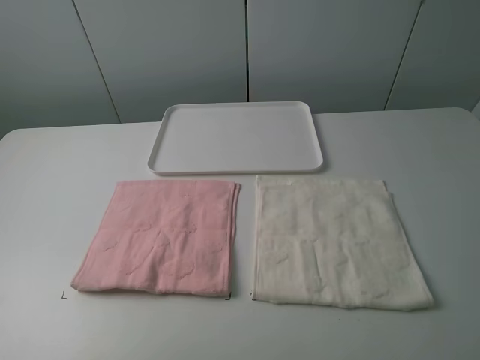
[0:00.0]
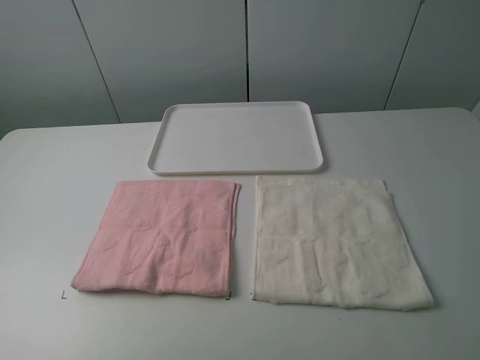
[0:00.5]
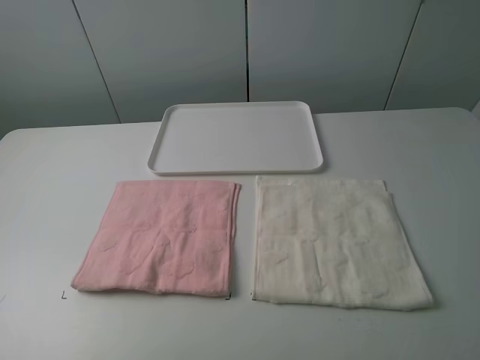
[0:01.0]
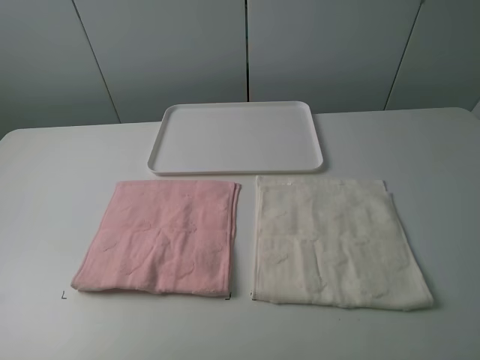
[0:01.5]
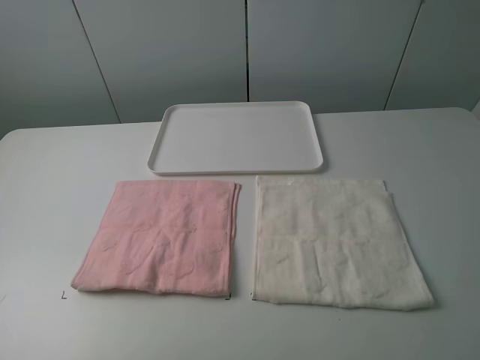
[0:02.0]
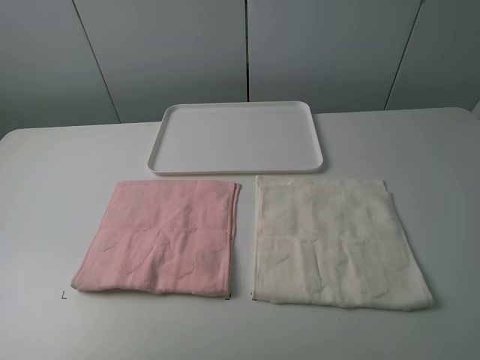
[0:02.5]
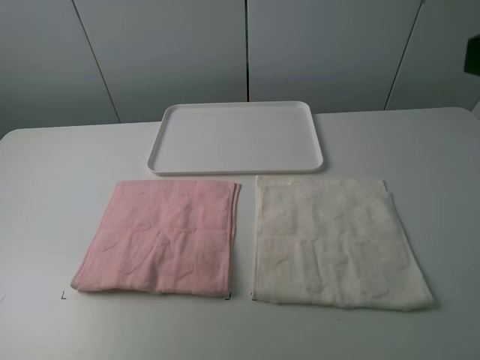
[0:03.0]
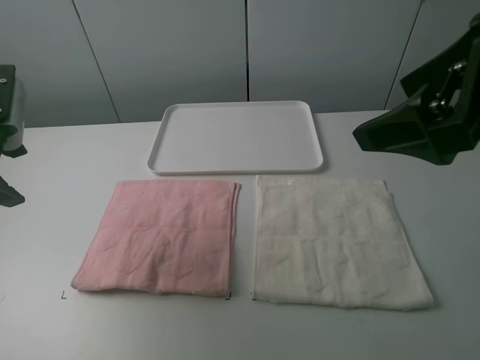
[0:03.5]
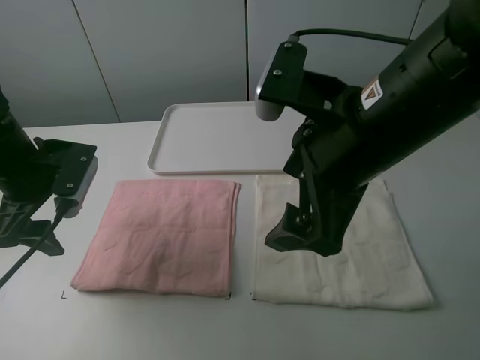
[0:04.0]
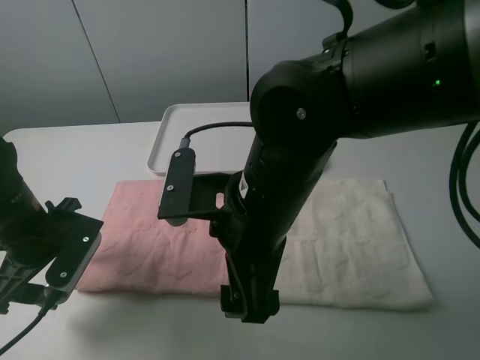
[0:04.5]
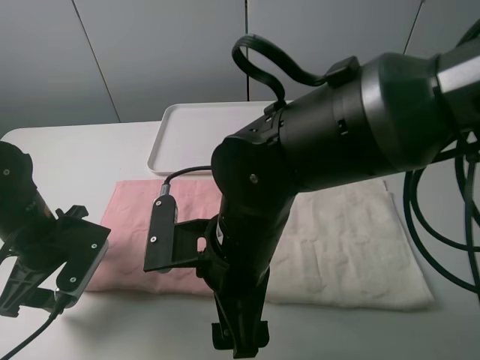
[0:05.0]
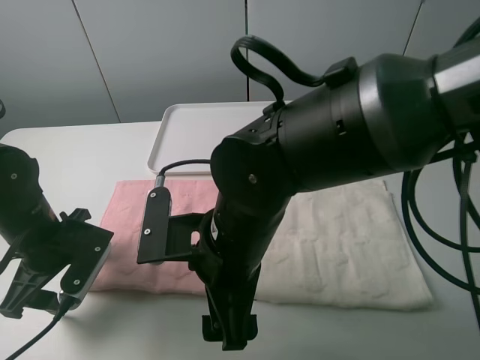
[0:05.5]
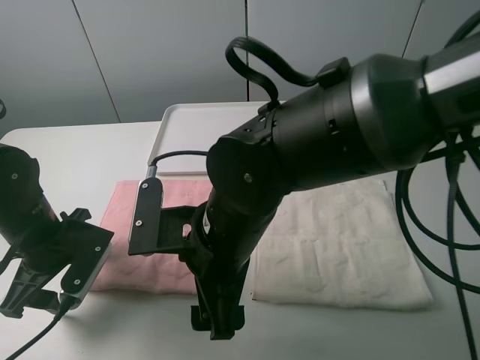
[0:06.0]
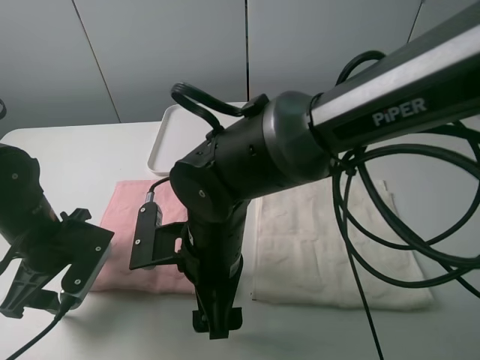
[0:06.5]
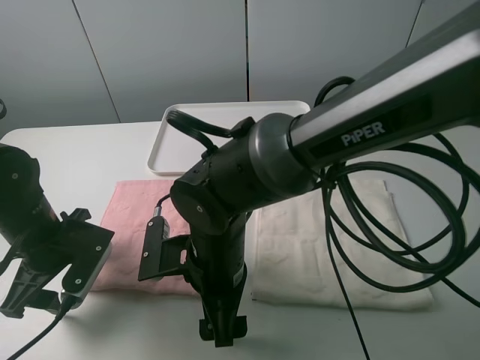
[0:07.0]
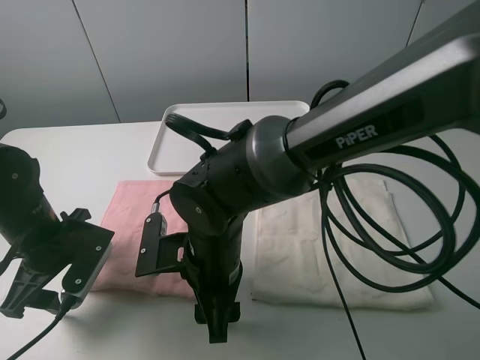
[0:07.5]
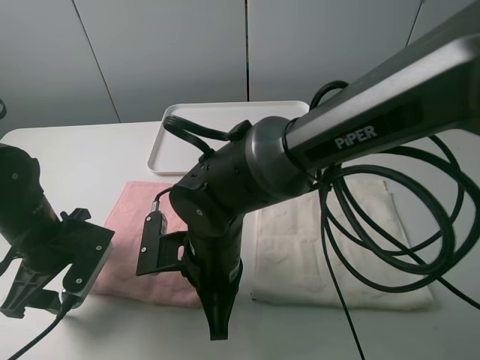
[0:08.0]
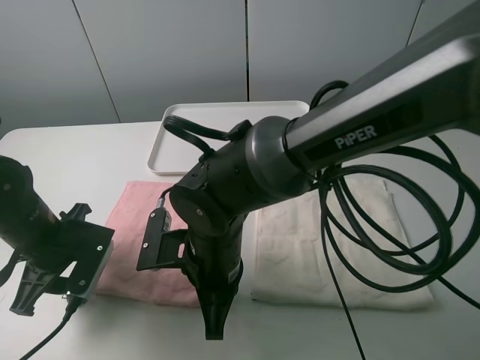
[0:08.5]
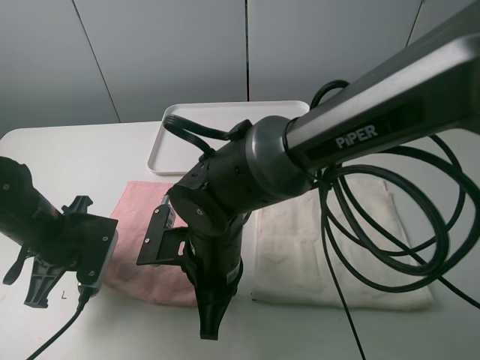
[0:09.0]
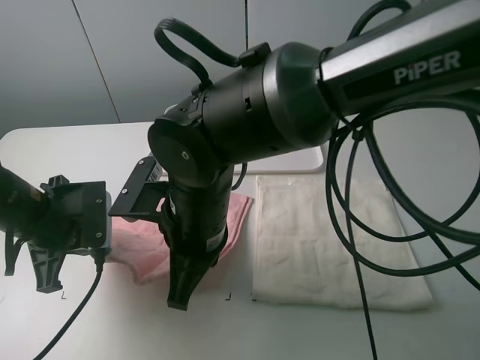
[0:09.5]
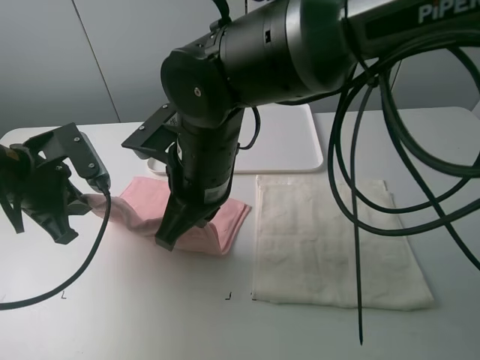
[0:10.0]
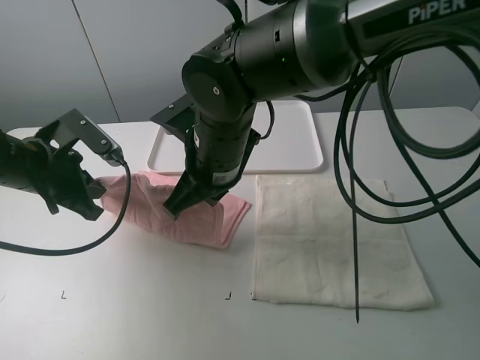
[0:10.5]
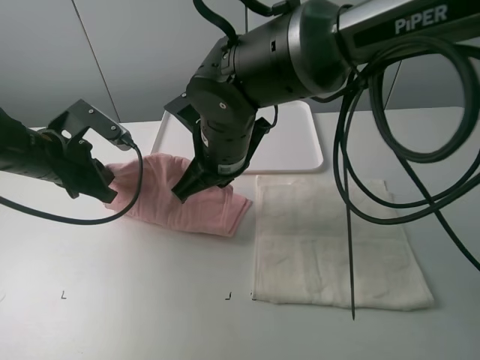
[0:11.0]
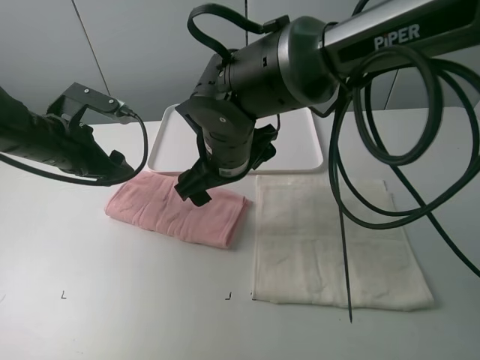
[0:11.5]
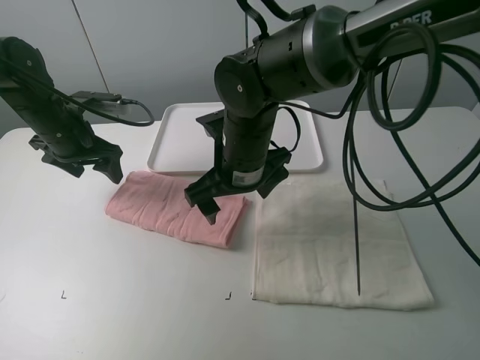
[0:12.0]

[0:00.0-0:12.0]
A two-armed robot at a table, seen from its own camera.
Task of the whole recording: fold one of the towels by two grippers and place it on the tray,then fold another towel by two grippers and place it on the folded towel.
Step, 0:00.0 to 0:08.5: Grasp the pink towel with the left gripper.
Step, 0:09.0 to 0:11.0: Fold the pink towel upwards with the left gripper.
0:00.0 to 0:02.0: The two grippers keep their place.
0:02.0 to 0:04.0: The right gripper goes about 25 cm to the left and forward; the left gripper goes roughly 30 cm forward and downward.
0:04.0 to 0:06.0: The left gripper is displaced downward by about 10 cm. The right gripper moves to the left and downward, roughly 15 cm.
0:06.0 to 0:08.0: The right gripper shifts about 5 cm downward, and closes its fingers.
0:08.0 to 0:10.0: The right gripper heads upward and forward, covering approximately 10 cm, while the left gripper moves upward, roughly 5 cm, and closes up.
0:10.0 to 0:12.0: The left gripper goes some 15 cm forward, and opens. Meanwhile the right gripper goes approximately 5 cm forward, and opens.

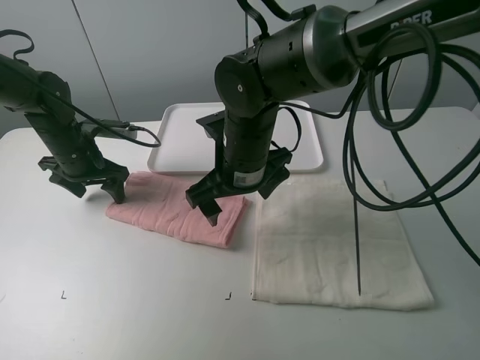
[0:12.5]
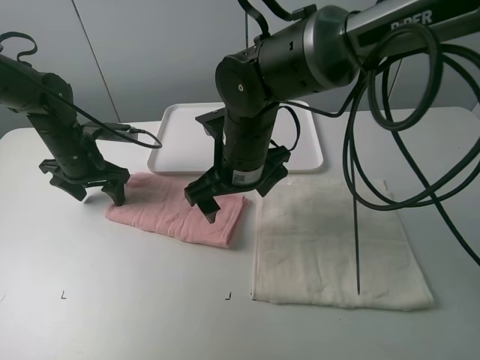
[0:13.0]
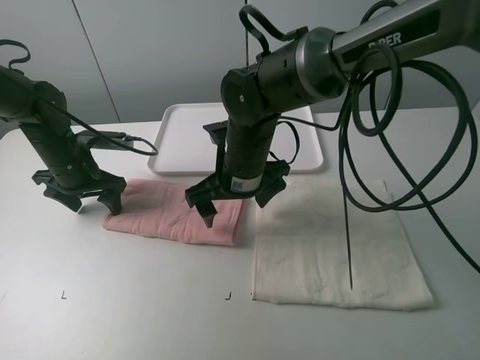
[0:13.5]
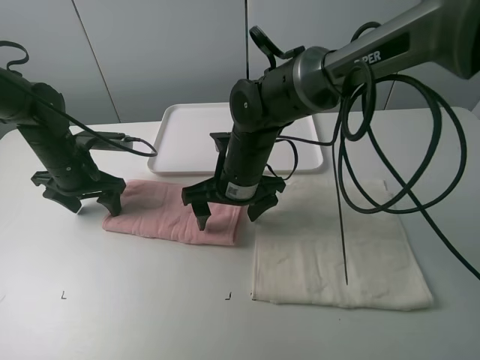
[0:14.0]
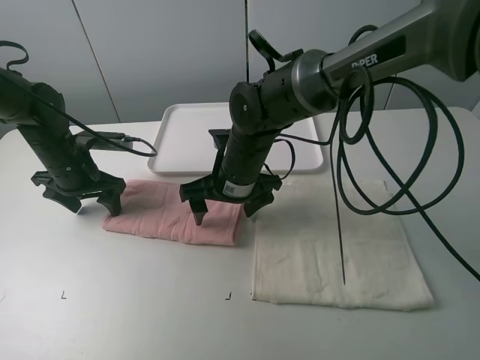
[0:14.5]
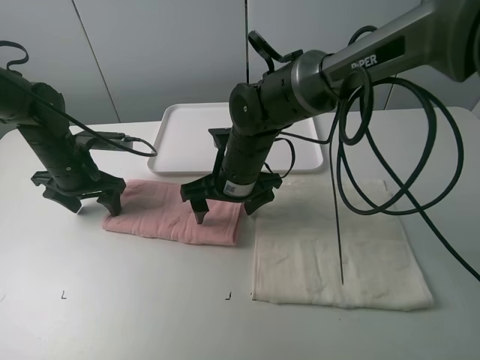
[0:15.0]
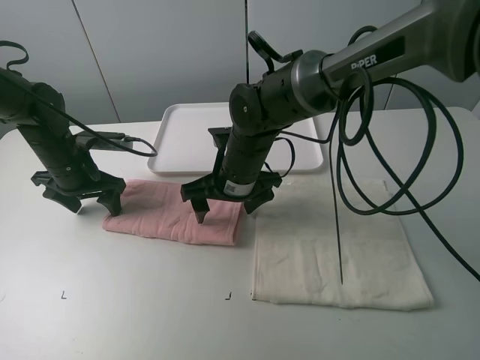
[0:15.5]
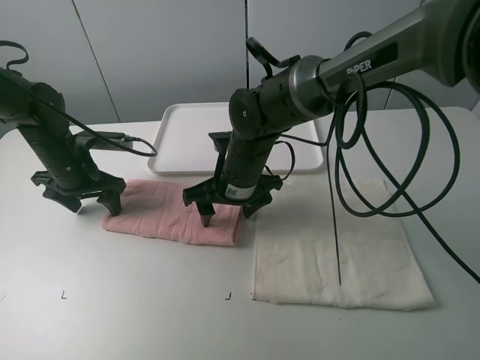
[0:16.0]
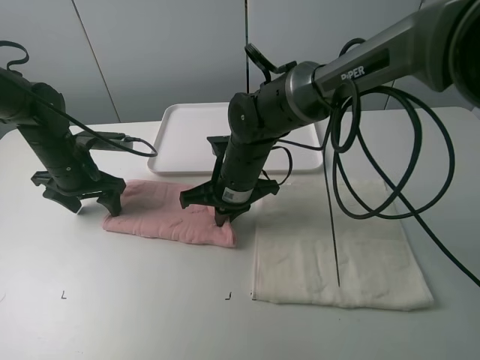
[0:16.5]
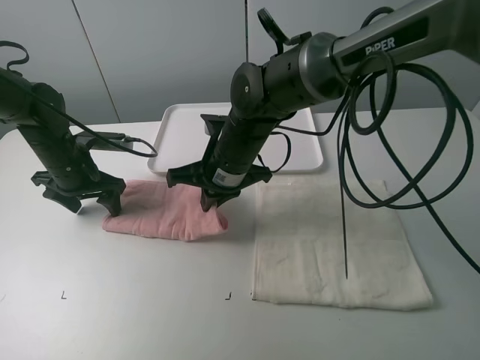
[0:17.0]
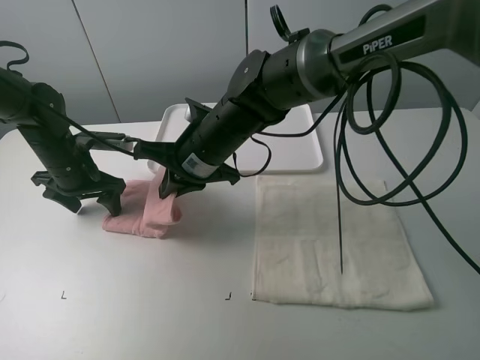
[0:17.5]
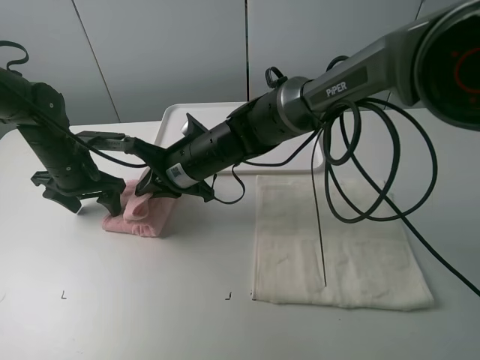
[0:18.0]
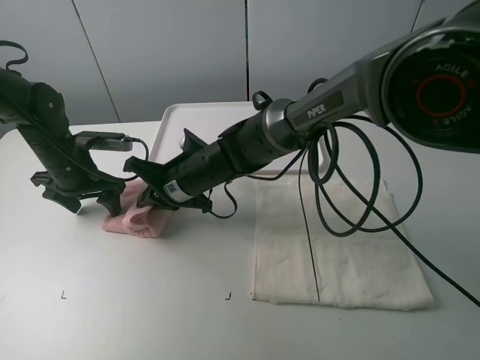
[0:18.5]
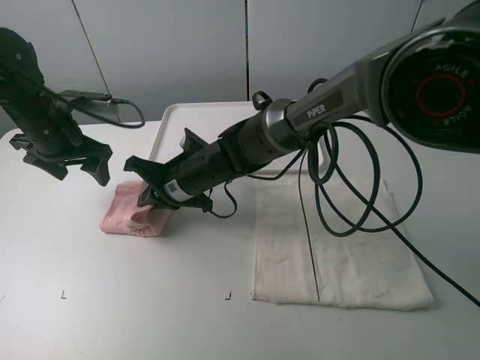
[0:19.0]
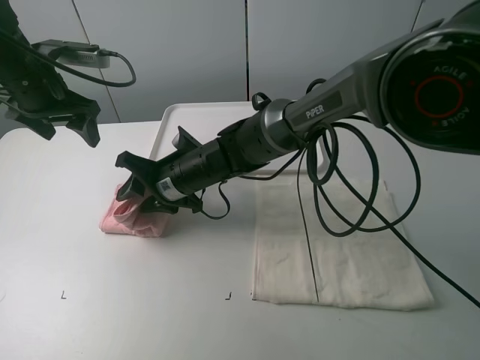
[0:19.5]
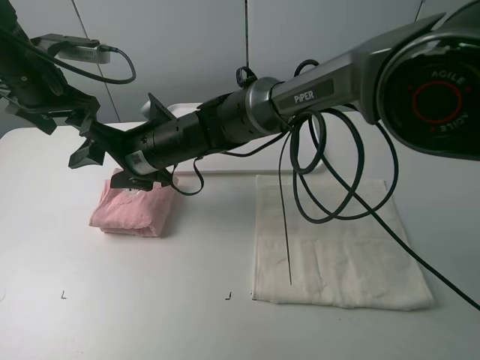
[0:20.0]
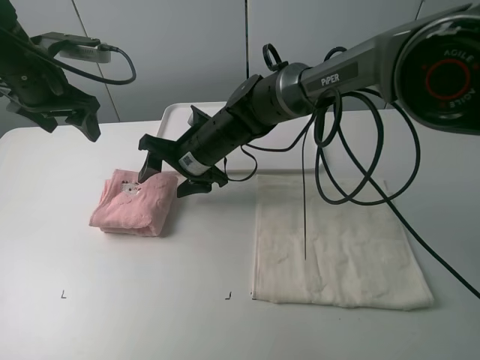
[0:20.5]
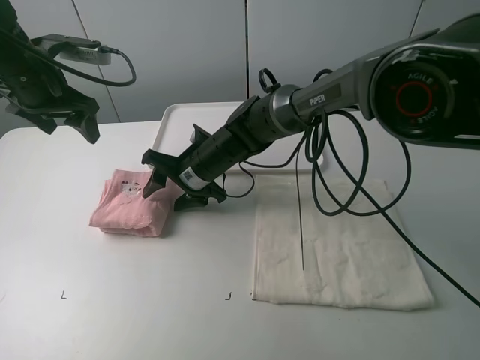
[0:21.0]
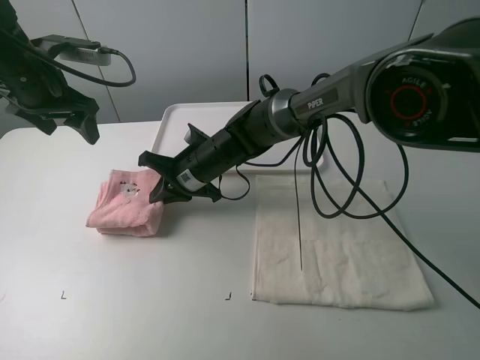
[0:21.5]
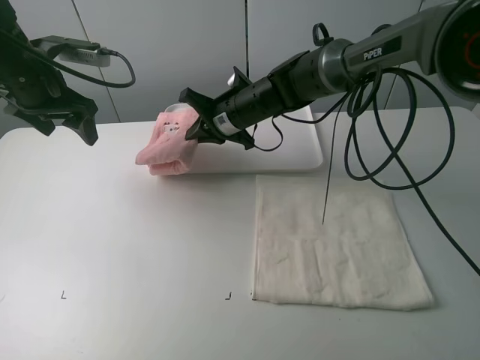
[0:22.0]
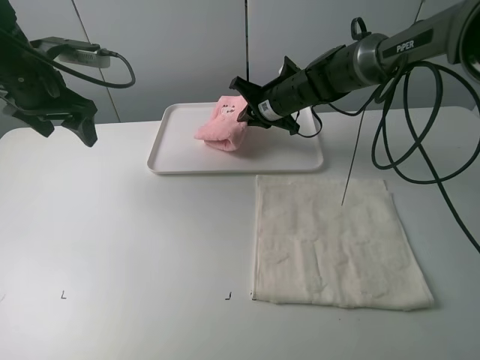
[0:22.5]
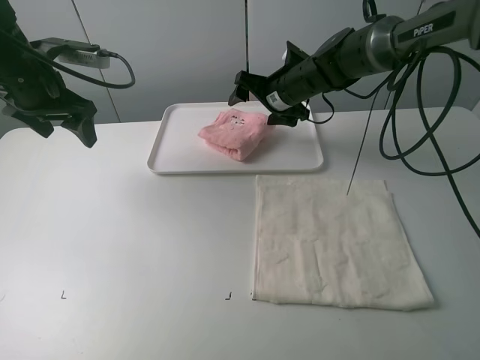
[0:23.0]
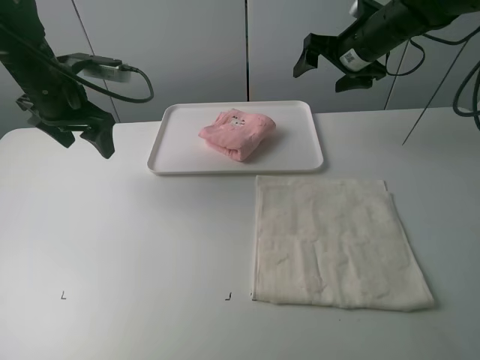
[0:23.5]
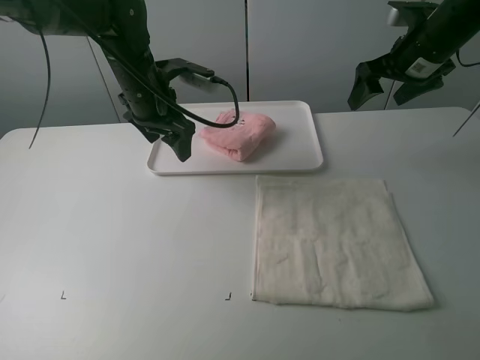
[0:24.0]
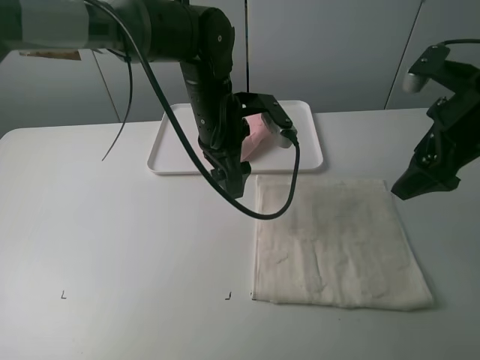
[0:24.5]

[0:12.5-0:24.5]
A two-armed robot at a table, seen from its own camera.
Task of the whole recording: fold one of the towels by two grippers and place it on the tray,then fold another towel by two grippers and place it on the folded towel.
Step, 0:14.0 to 0:16.0: Grasp the pink towel with the right gripper.
Step, 0:16.5 to 0:20.0: Fold the pink towel from right to left with right gripper.
Step, 0:20.5 to 0:21.0: Grasp the pink towel with the right gripper.
Step, 0:21.5 to 0:23.0: Move the pink towel to the plate with the right gripper.
0:12.5 to 0:14.5: The right gripper moves about 5 cm.
0:14.5 to 0:16.5: The right gripper closes its fingers.
0:16.5 to 0:18.5: The right gripper moves to the left, about 5 cm.
0:18.5 to 0:20.5: The left gripper moves upward, about 15 cm. The right gripper opens its fingers.
0:20.5 to 0:22.5: The right gripper moves to the right and forward, approximately 15 cm, and closes.
0:22.5 to 0:24.5: The left gripper travels to the right by roughly 25 cm. The right gripper travels backward, to the right and upward by roughly 30 cm, and opens up.

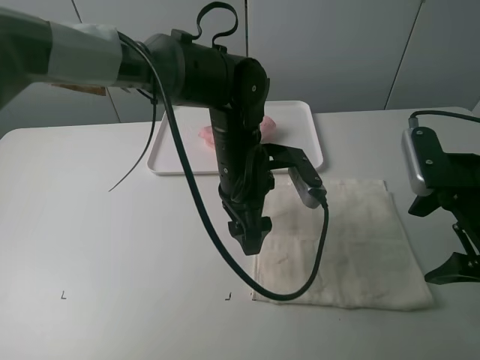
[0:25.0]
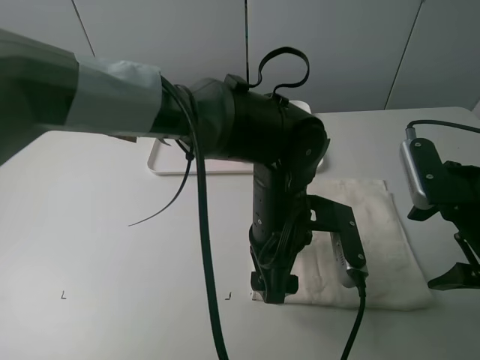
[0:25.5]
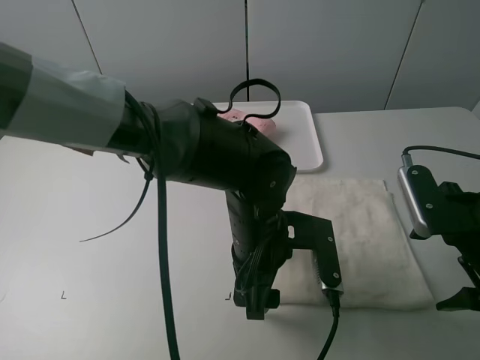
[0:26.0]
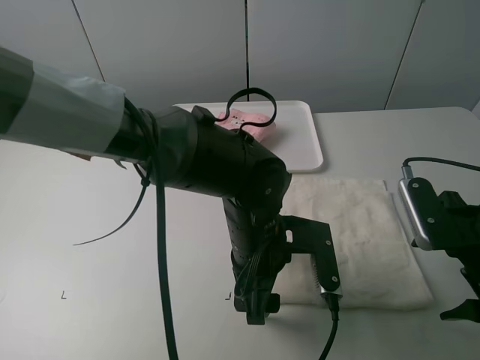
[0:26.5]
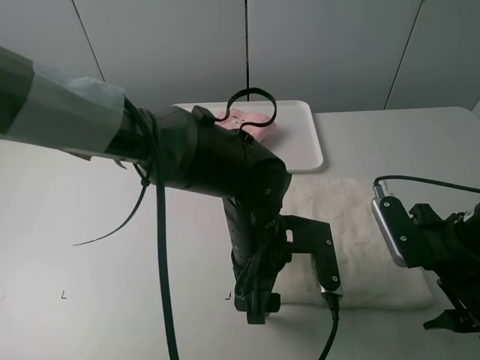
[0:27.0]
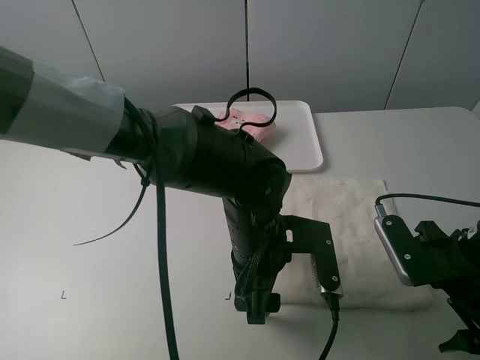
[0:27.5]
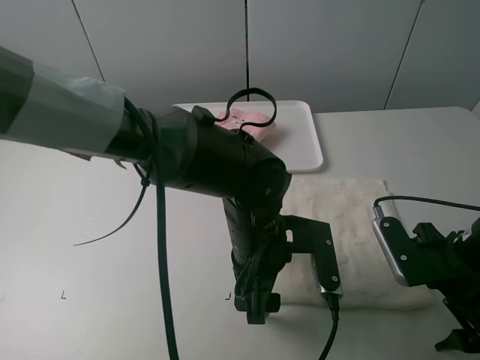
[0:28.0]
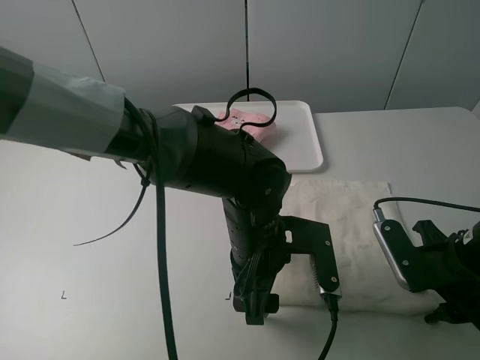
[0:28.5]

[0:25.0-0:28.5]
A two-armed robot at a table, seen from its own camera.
Task of the whole recording: fold one of the towels by two grippers and place it on the tray,then fold another towel by two grippers and place it on the folded towel.
0:25.0 to 0:27.0: The left gripper heads backward, covering about 10 cm, while the right gripper is displaced downward by approximately 5 cm.
0:27.0 to 0:28.5: The right gripper closes its fingers.
